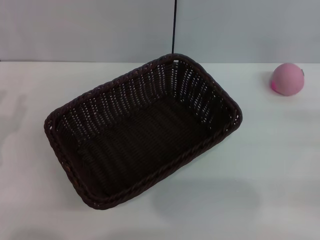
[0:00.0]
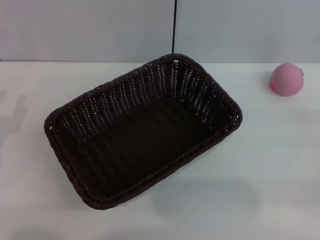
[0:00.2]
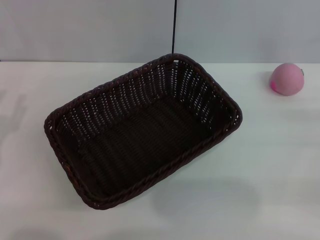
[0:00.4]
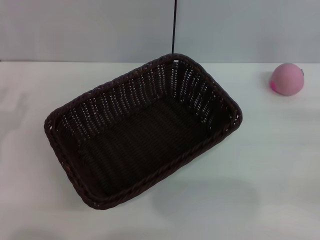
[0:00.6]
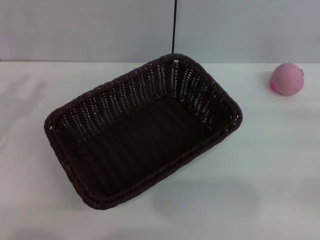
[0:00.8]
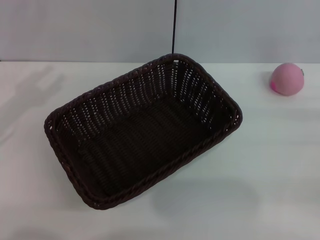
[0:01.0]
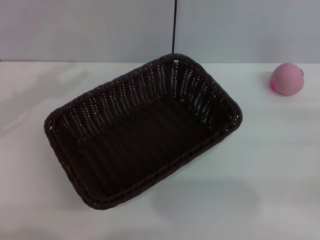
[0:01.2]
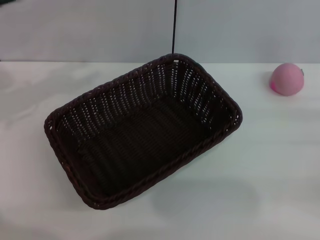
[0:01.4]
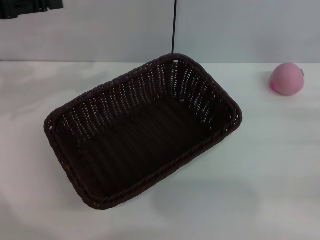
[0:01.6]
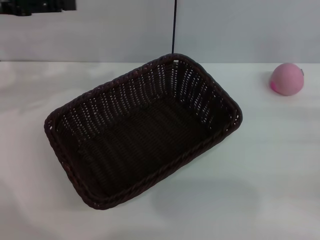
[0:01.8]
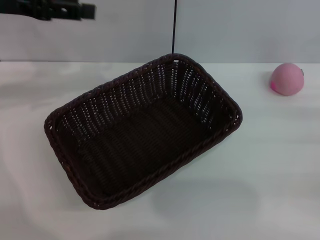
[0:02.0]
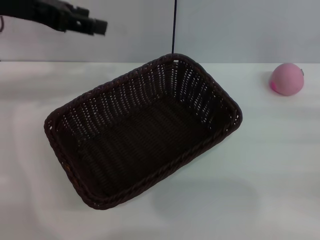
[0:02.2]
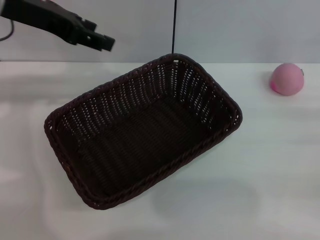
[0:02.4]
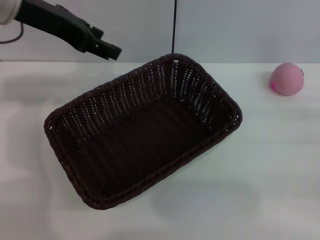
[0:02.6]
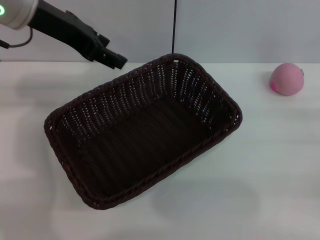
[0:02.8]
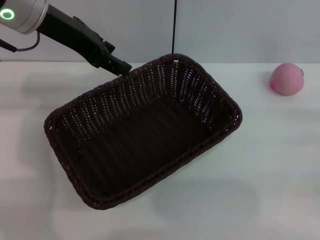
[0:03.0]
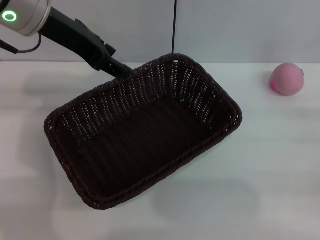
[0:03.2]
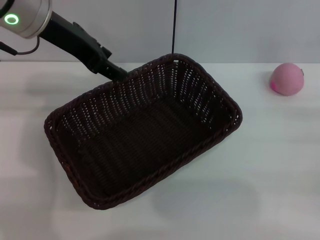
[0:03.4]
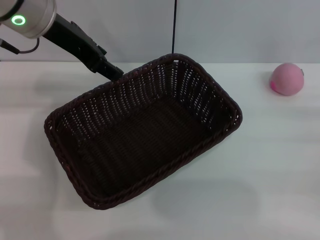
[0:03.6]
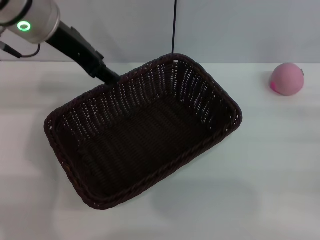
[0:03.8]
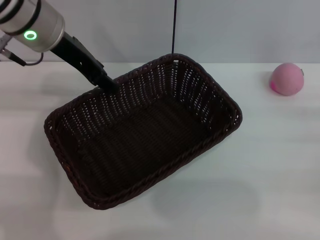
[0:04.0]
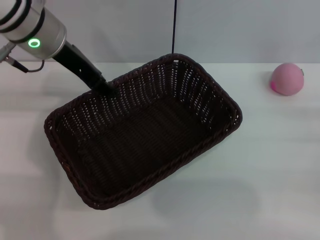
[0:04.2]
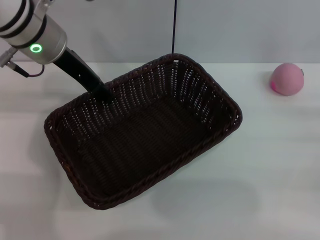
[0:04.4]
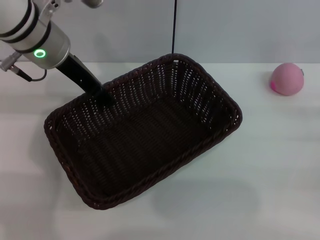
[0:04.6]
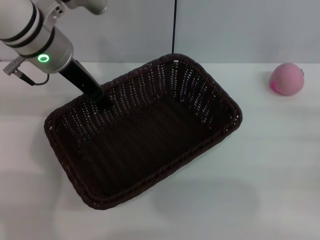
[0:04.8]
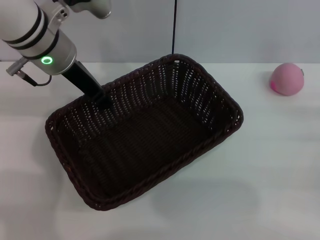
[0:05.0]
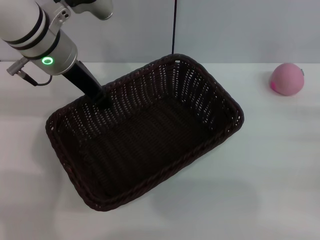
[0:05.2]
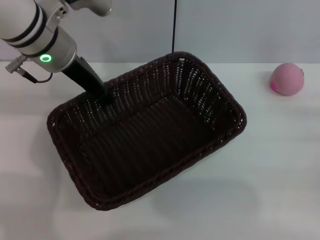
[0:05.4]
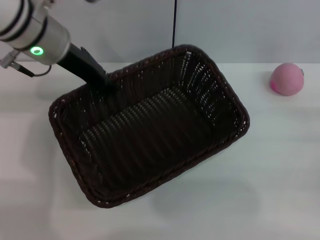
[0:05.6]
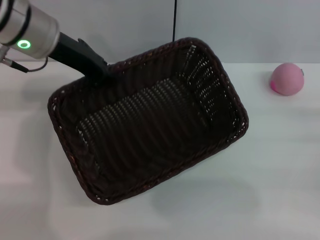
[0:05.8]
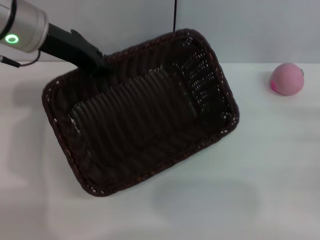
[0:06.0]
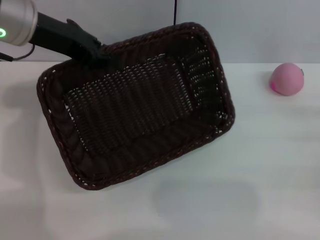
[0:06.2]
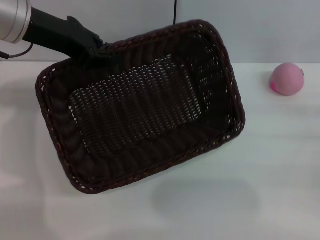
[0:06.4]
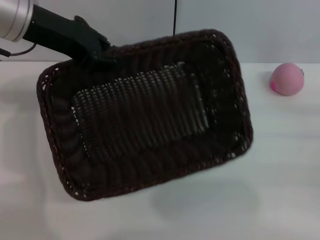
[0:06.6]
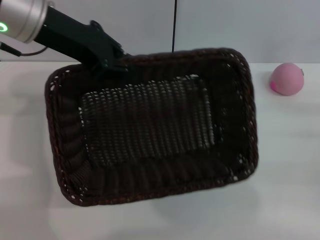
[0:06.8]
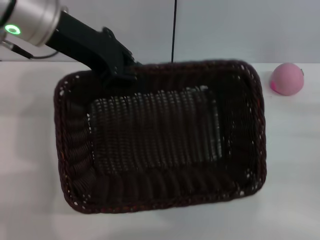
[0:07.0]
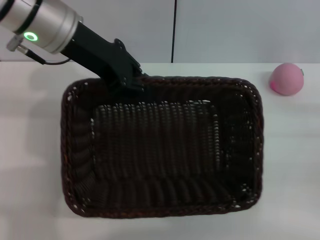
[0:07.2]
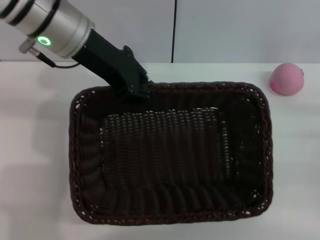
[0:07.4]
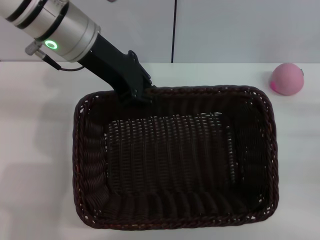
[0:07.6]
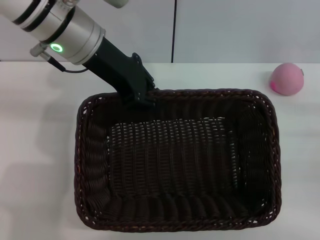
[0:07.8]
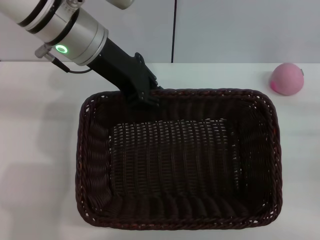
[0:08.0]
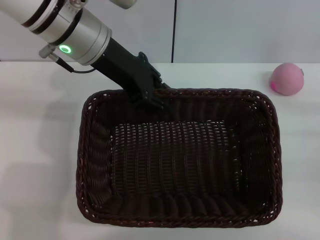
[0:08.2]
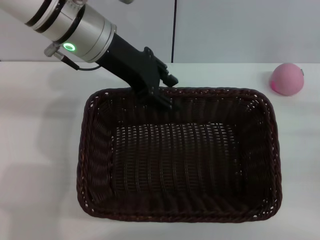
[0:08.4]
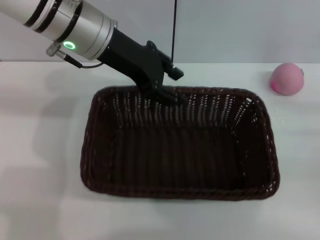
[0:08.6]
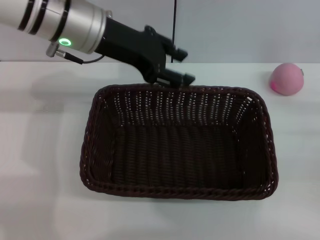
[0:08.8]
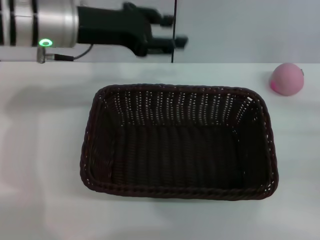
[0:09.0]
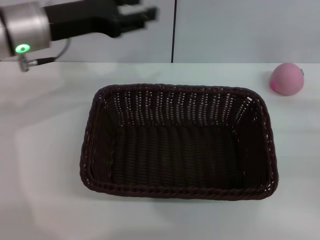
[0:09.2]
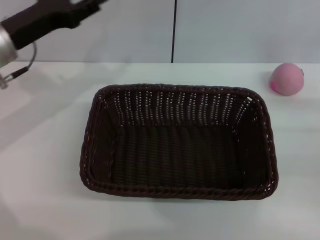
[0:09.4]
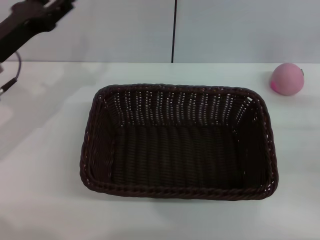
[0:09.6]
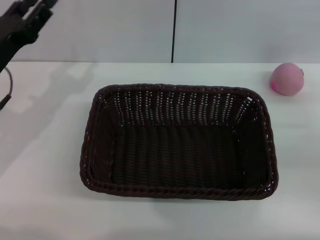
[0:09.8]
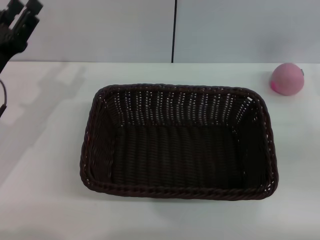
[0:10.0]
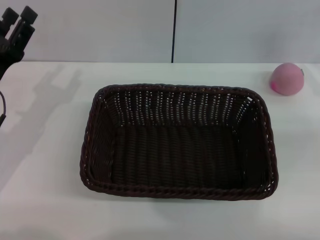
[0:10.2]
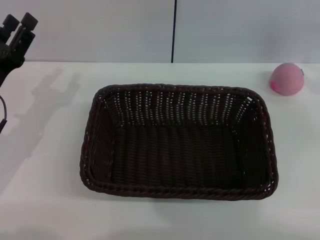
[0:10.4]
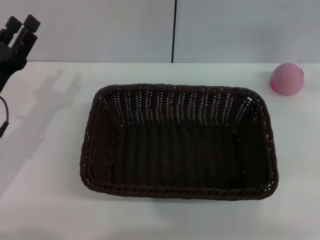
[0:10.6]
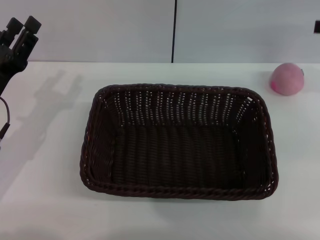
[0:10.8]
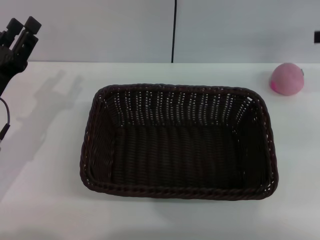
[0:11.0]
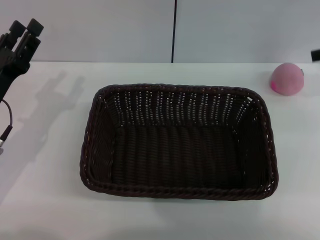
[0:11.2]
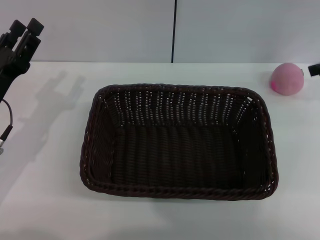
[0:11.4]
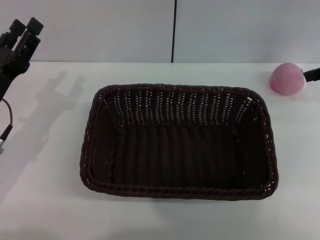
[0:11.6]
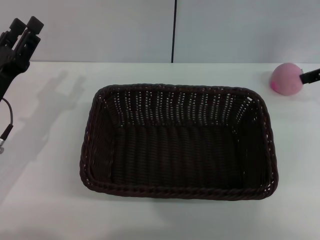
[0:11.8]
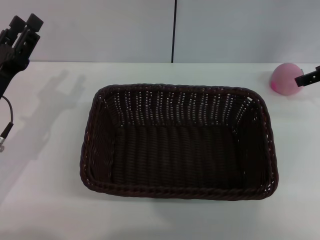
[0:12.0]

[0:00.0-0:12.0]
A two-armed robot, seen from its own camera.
Step, 0:00.0 to 0:05.4: Pick up the dark basket with the left gripper.
0:00.0 to 0:01.6: The left gripper heads upward and forward, covering about 20 cm.
0:01.6 to 0:03.0: The left gripper is displaced to the right by some 15 cm.
0:03.0 to 0:04.4: The left gripper is displaced downward by some 5 cm.
0:04.4 to 0:06.0: The left gripper closes up.
0:06.0 to 0:07.6: The left gripper moves to the right, some 5 cm.
0:07.6 to 0:09.0: The left gripper opens up.
0:09.0 to 0:10.4: The right gripper shifts some 15 cm upward and forward. Meanwhile the left gripper heads downward, to the left and backward, covering roughly 20 cm.

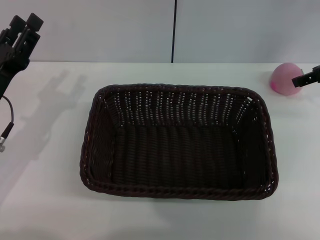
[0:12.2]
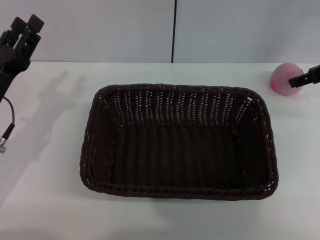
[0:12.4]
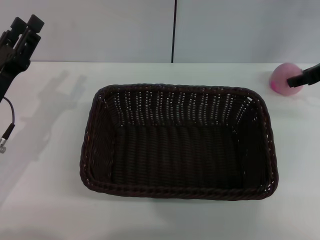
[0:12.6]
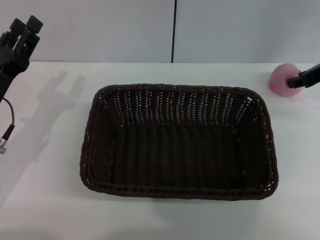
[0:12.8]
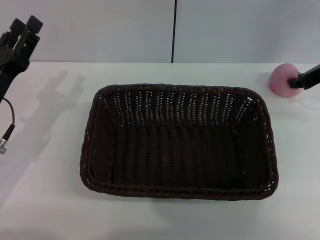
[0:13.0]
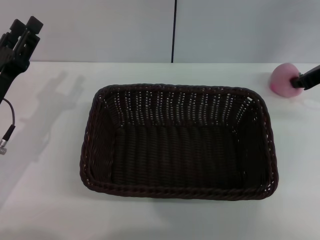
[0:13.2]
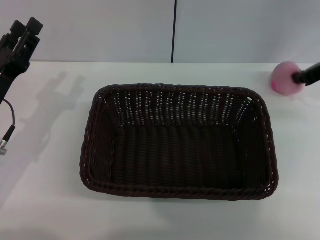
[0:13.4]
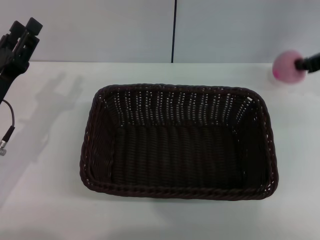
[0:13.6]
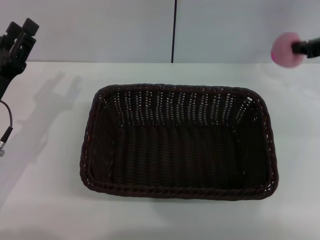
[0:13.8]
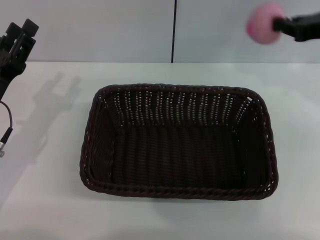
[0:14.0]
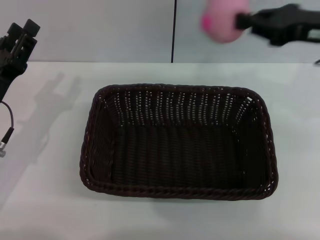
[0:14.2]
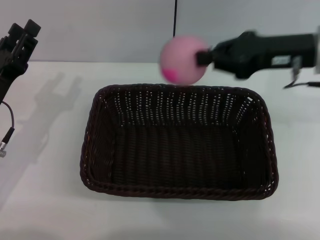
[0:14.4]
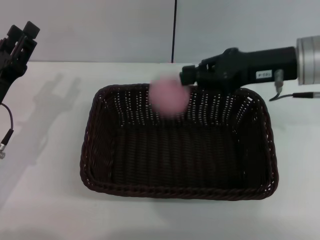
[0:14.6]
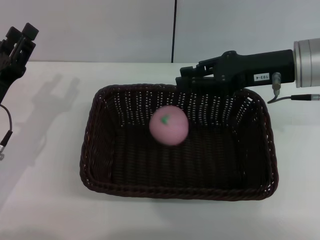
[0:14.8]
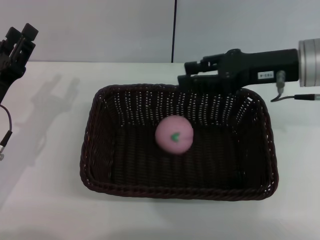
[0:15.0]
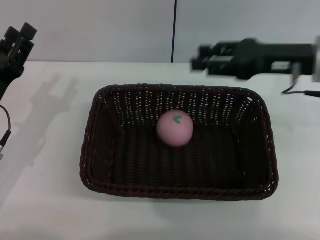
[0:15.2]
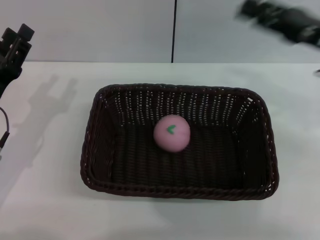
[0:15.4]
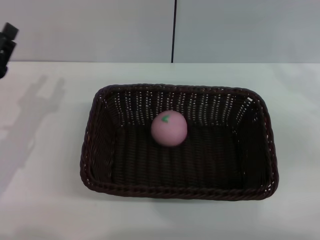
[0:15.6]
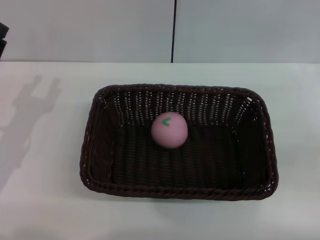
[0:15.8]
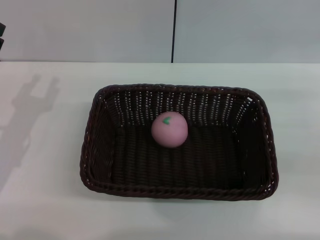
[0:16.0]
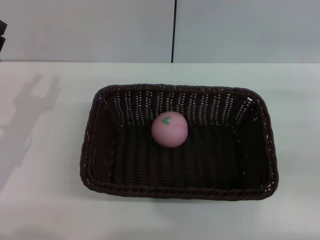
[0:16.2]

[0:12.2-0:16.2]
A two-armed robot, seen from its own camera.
0:12.2 to 0:13.6: The right gripper closes.
0:13.6 to 0:14.8: The right gripper moves to the left and backward, approximately 15 cm.
0:14.8 to 0:16.2: The right gripper goes some 20 cm to the right, downward and backward, and opens its fingers.

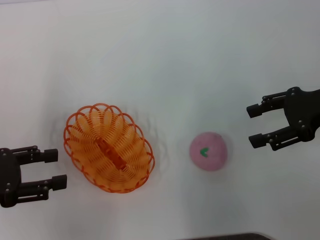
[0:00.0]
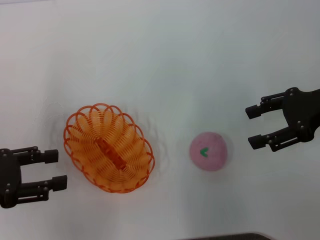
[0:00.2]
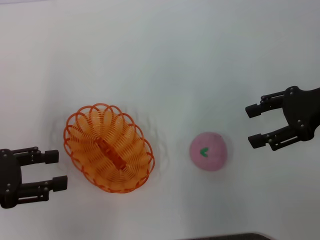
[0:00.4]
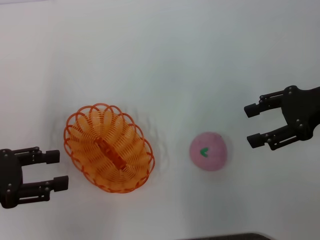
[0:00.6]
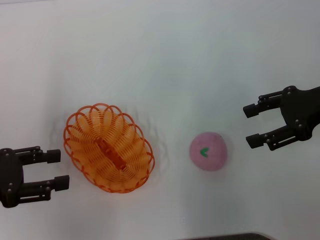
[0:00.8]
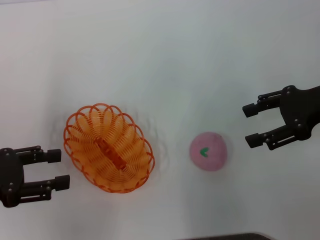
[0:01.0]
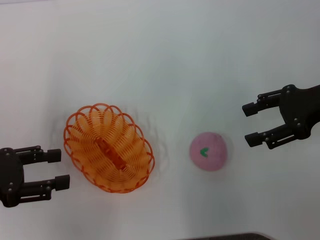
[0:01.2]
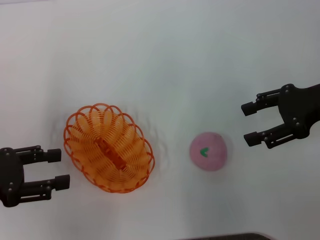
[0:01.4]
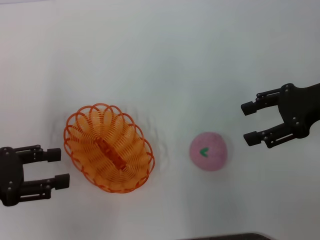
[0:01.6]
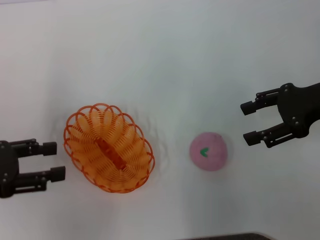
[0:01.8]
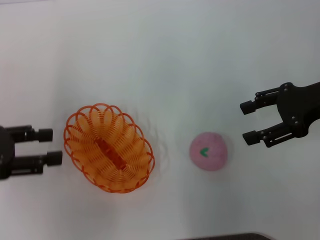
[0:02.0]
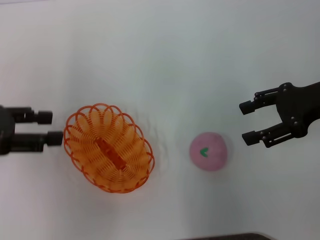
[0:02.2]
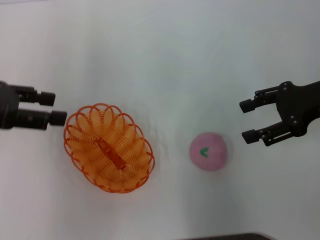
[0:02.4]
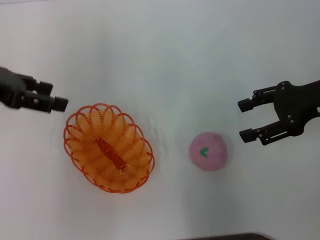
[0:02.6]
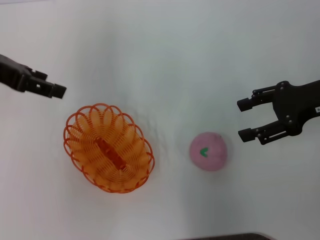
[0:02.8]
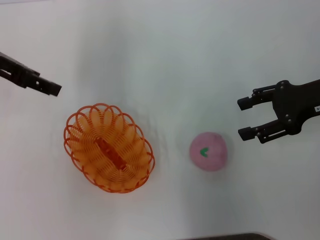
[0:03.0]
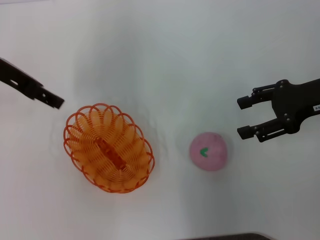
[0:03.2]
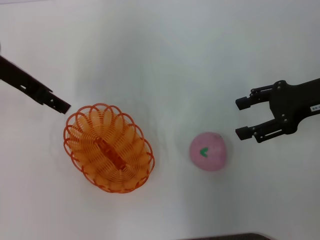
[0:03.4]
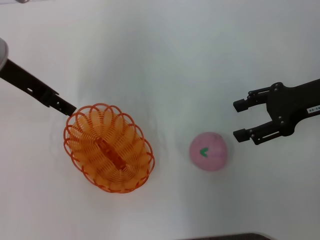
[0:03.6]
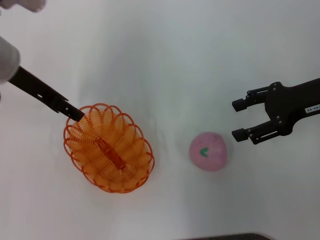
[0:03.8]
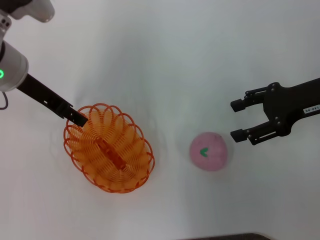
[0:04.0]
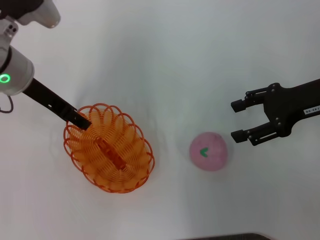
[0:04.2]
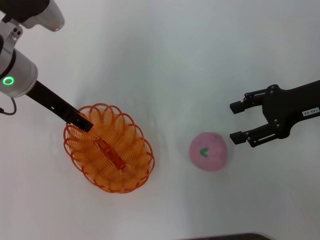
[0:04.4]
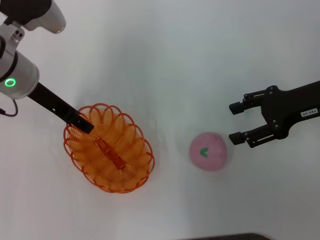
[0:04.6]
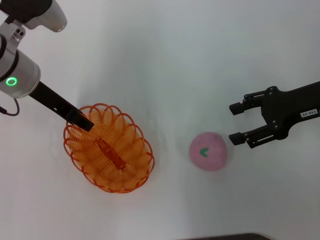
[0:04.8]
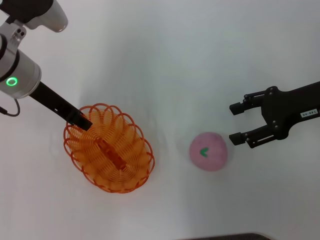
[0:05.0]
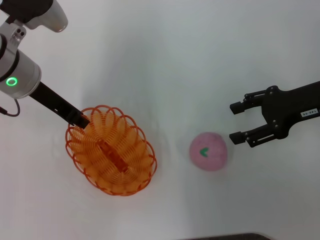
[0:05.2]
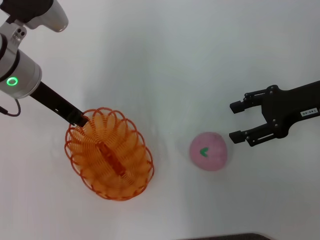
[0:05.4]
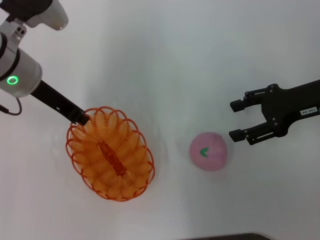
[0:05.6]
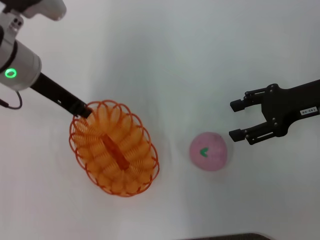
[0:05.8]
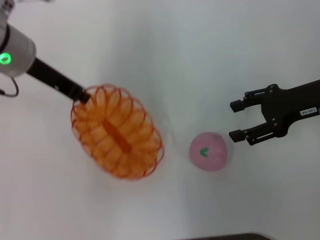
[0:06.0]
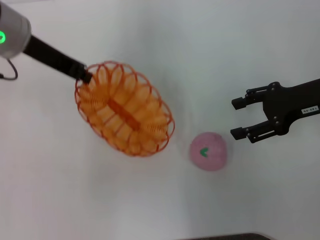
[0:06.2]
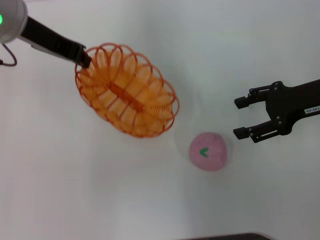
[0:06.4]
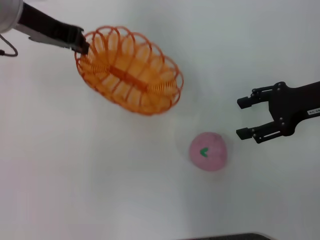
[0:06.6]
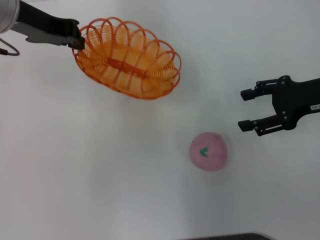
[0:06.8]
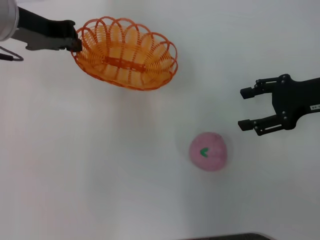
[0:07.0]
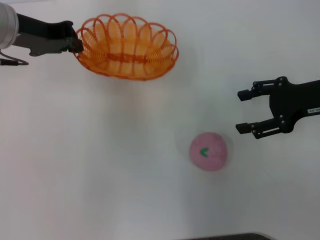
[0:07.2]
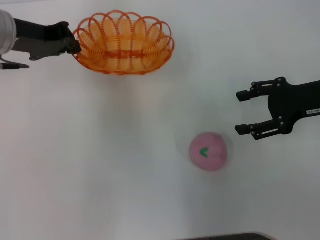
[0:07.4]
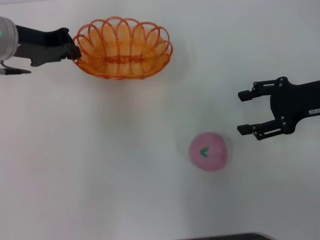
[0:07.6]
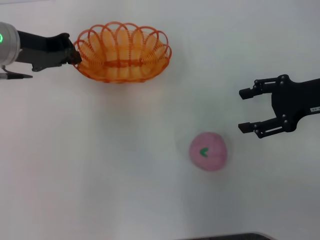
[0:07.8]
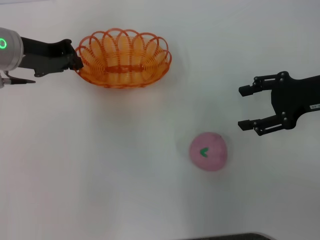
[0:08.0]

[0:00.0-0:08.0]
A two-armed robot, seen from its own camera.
Step, 0:00.0 to 0:06.2: Pick up the basket with the left gripper.
0:00.0 to 0:01.6: Neither gripper changes place.
0:01.6 to 0:03.2: The left gripper shifts about 20 cm forward, upward and to the right.
0:03.2 to 0:04.8: The left gripper shifts approximately 5 cm downward.
0:04.8 to 0:06.4: The left gripper heads upward, covering roughly 10 cm, and closes.
0:06.4 to 0:08.0: The left gripper goes about 10 cm downward.
